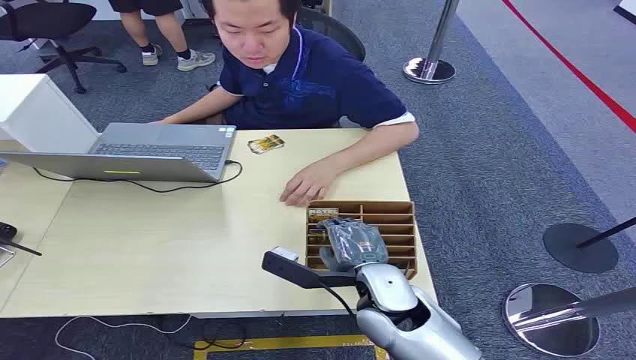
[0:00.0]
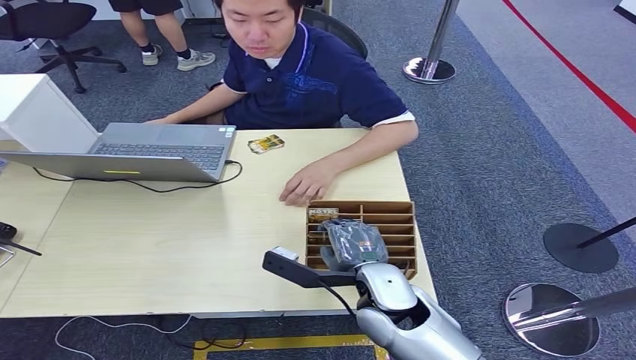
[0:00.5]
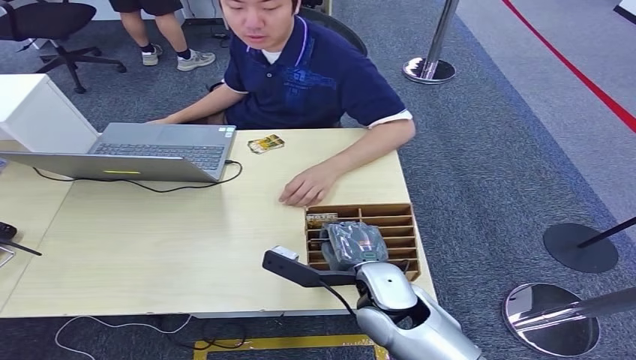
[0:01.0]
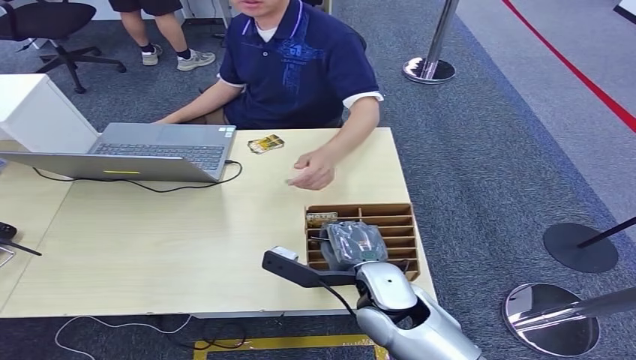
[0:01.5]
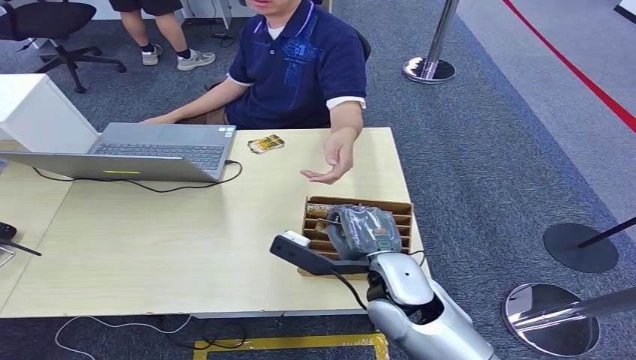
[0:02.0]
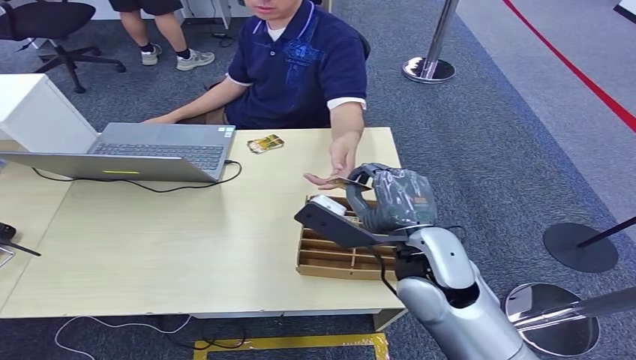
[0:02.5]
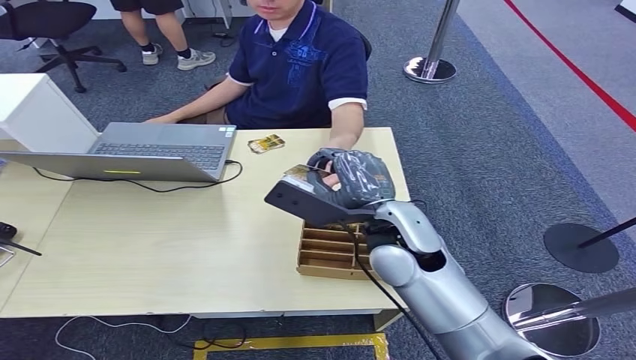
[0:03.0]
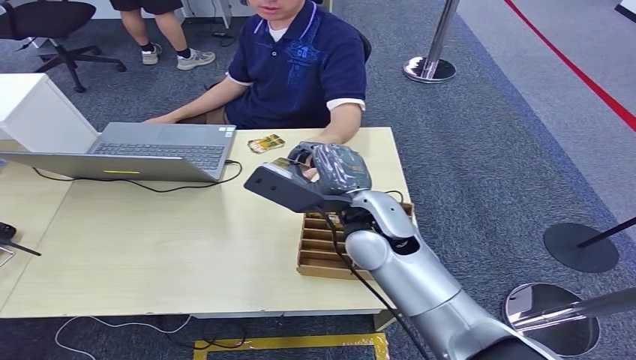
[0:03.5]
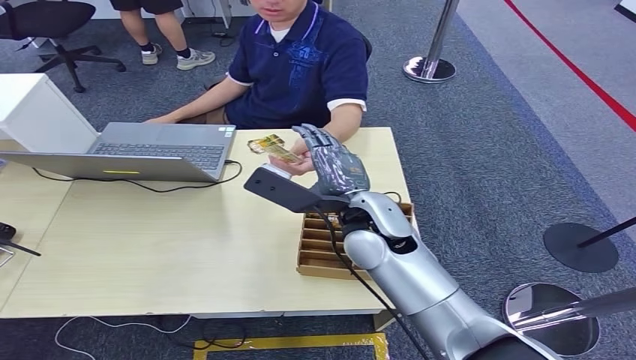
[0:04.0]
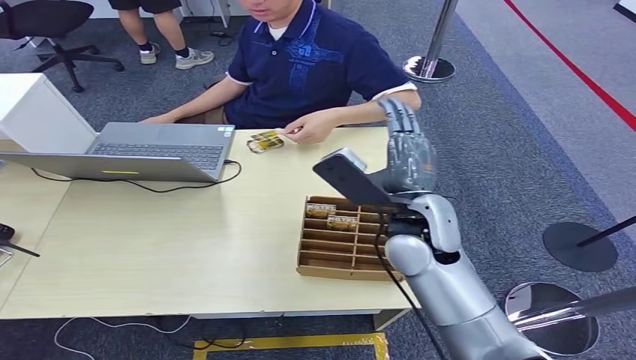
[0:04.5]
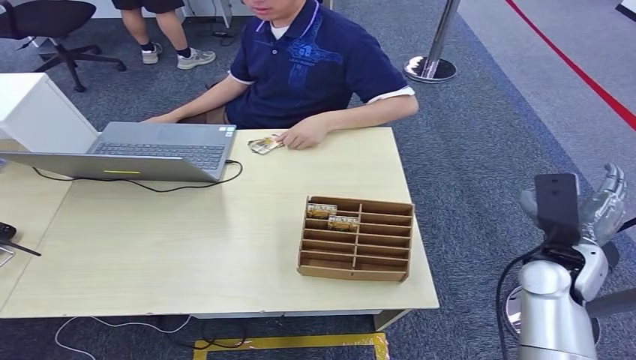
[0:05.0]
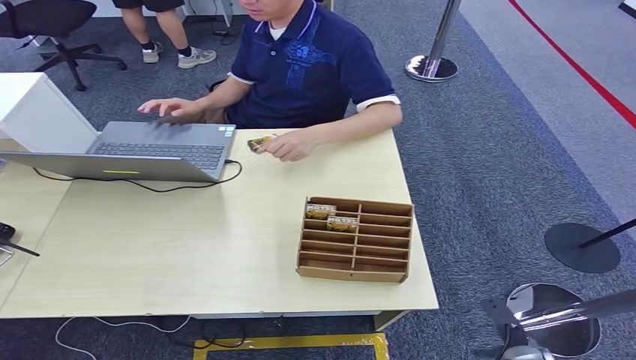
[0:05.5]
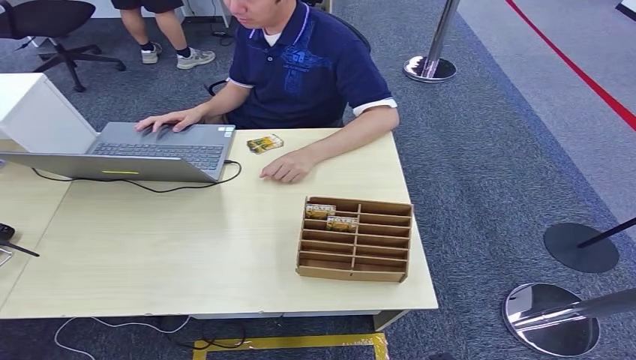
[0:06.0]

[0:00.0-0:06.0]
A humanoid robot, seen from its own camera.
Step, 0:00.0 to 0:02.0: Pick up the key card from the card box.
Step, 0:02.5 to 0:06.0: Hand the key card to the target.
0:02.0 to 0:04.0: The right hand goes roughly 10 cm forward and upward.
0:04.0 to 0:06.0: The right hand heads downward, backward and to the right, covering some 50 cm.
